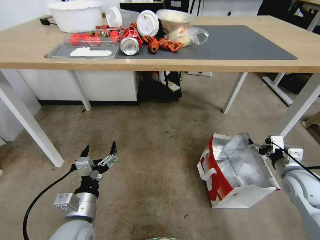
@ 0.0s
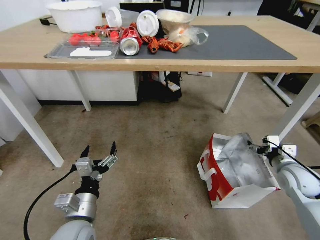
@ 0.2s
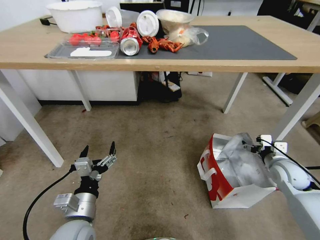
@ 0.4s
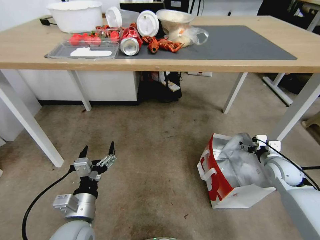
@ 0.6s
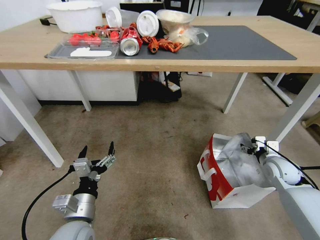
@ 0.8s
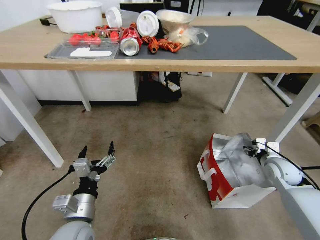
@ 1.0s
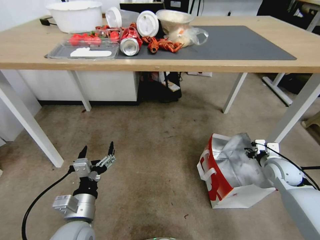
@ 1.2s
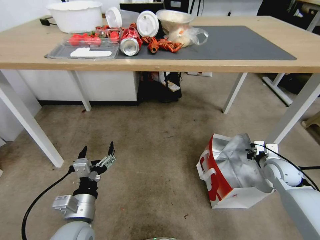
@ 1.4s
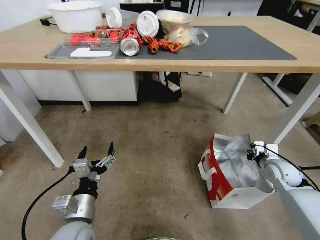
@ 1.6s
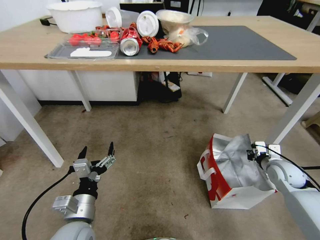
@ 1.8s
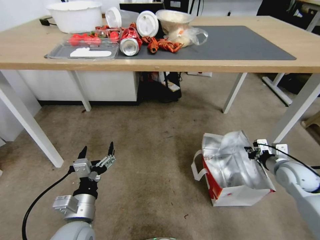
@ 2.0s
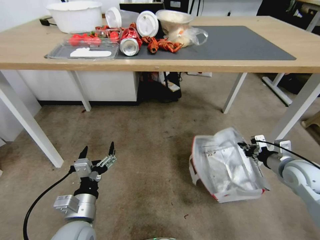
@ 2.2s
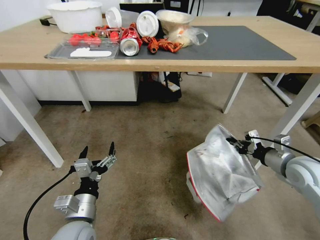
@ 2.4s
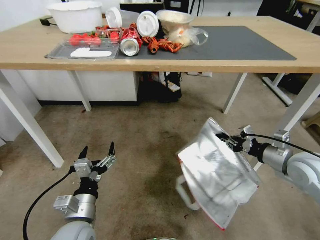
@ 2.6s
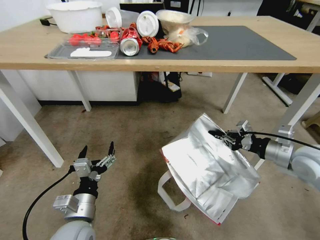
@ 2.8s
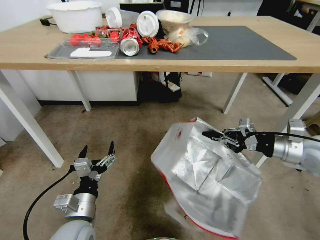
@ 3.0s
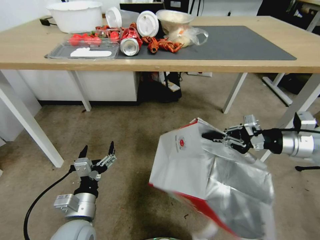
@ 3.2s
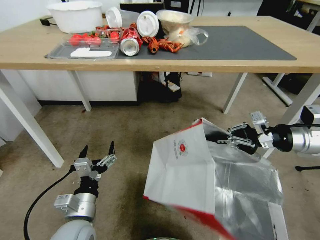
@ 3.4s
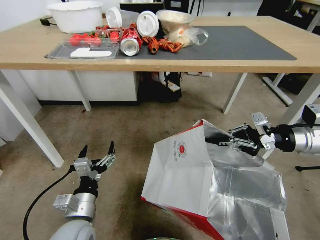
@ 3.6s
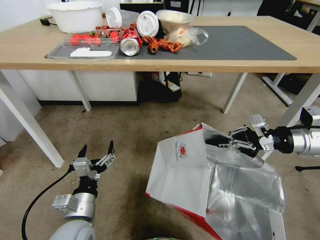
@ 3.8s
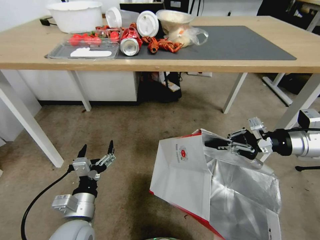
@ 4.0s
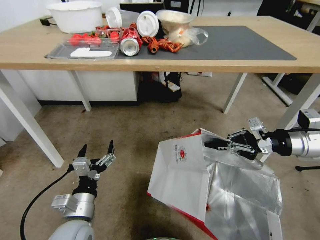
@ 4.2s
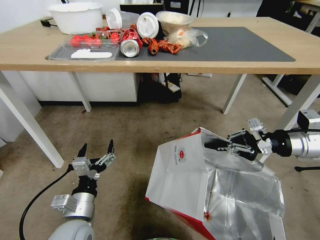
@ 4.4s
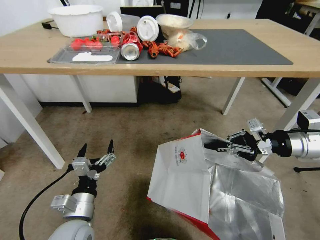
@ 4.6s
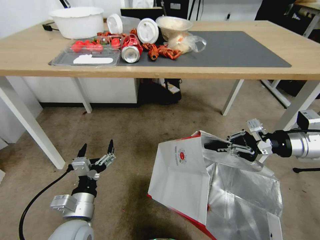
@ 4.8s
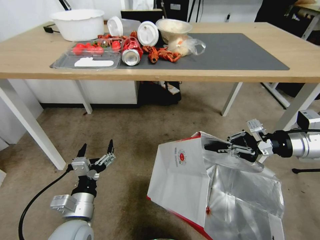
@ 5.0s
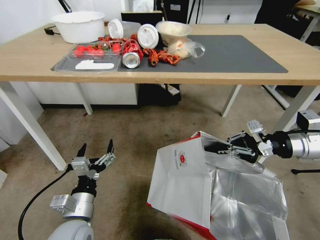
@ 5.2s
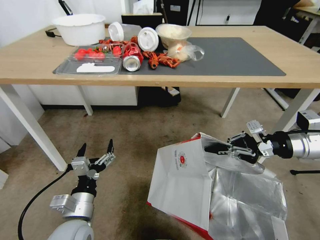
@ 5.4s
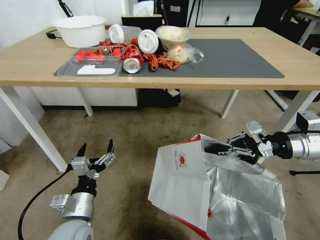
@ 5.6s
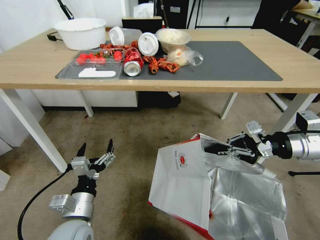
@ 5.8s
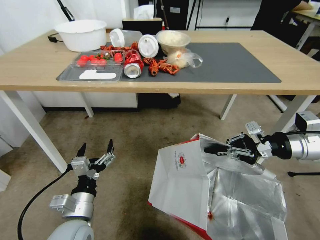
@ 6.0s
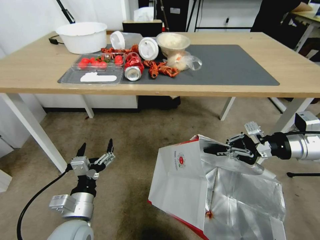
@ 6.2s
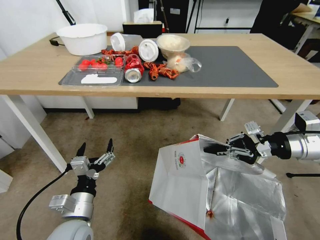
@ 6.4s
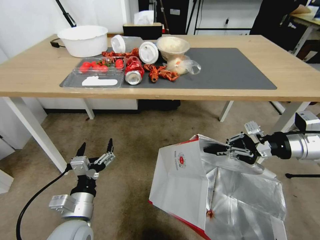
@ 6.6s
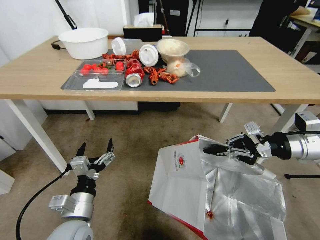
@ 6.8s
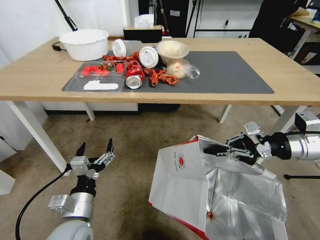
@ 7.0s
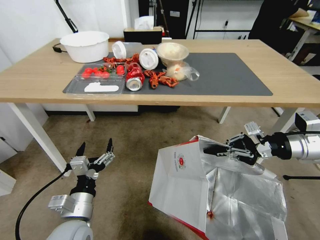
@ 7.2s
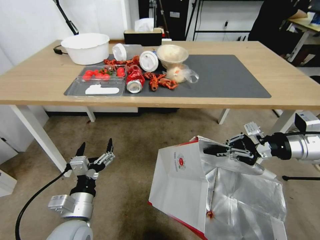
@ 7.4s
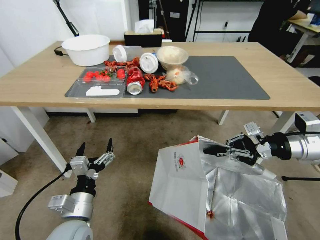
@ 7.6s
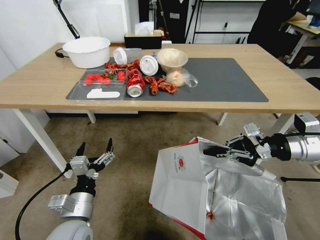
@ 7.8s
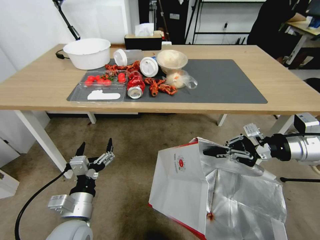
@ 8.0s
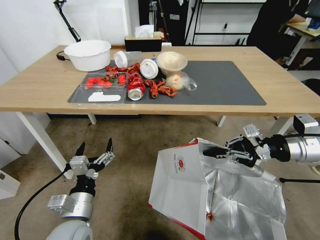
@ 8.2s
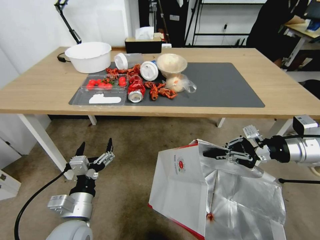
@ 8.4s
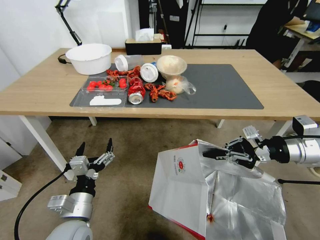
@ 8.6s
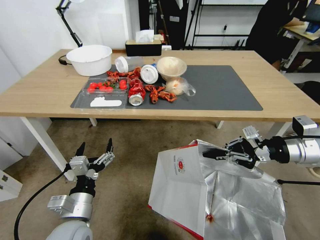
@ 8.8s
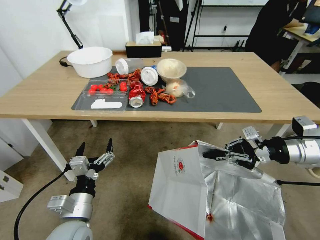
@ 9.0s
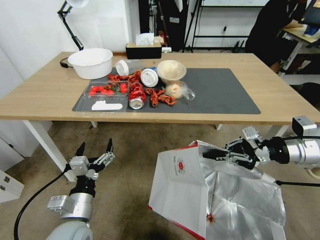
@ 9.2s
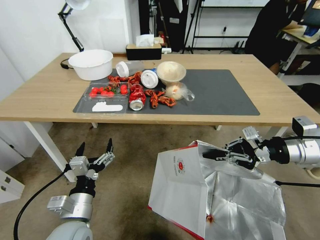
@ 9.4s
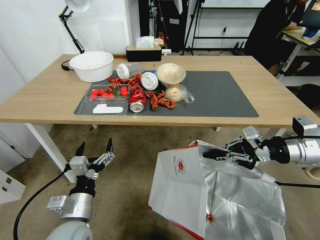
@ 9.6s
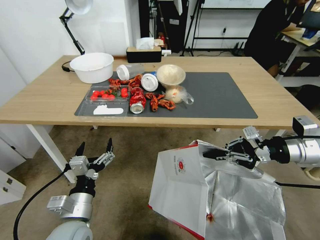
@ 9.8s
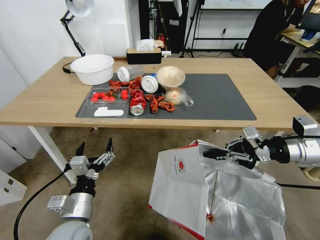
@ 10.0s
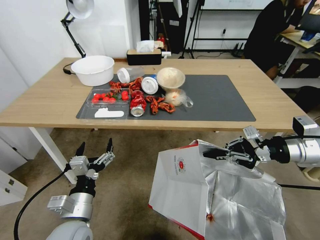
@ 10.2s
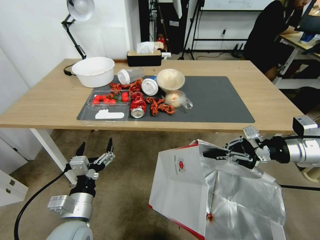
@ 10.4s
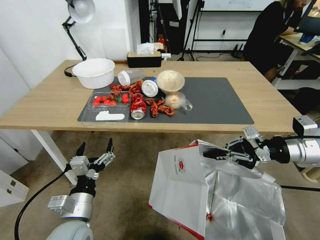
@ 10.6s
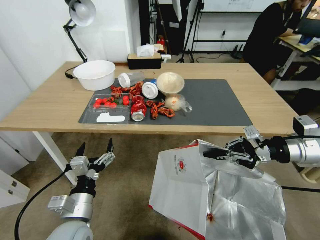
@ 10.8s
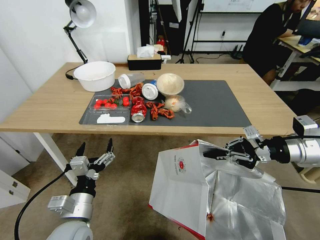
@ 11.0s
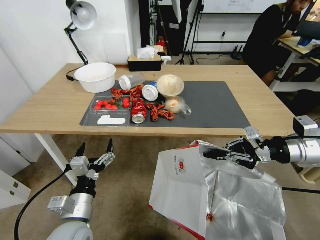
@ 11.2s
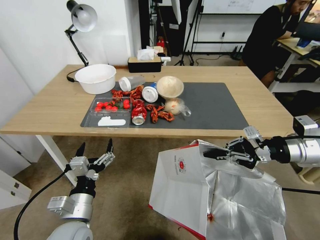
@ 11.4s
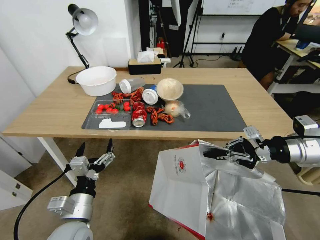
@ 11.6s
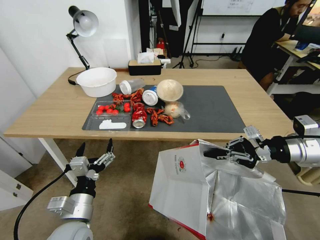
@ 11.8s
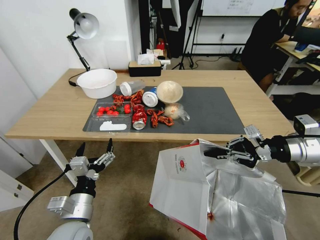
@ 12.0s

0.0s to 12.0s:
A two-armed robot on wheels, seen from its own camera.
Task of the whole recording: Pick up the food delivery bag from the floor and place it on the table.
0.0s to 1.6s: The right gripper heads forward and downward, covering some 10 cm, and closes its fingers.
1.6s to 3.0s: The right gripper shifts roughly 20 cm upward.

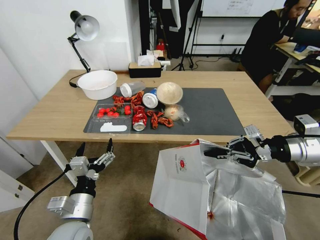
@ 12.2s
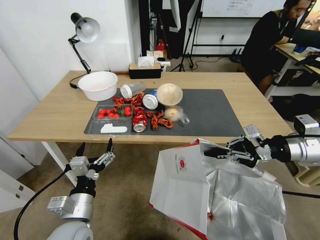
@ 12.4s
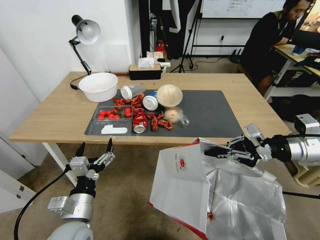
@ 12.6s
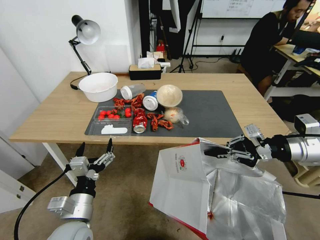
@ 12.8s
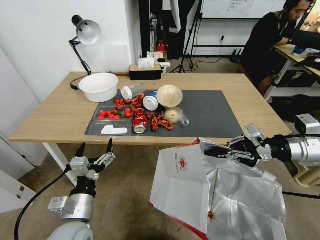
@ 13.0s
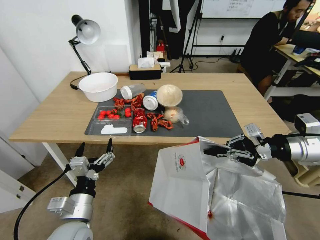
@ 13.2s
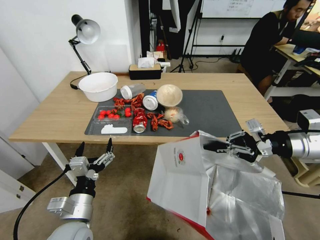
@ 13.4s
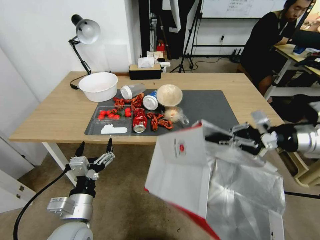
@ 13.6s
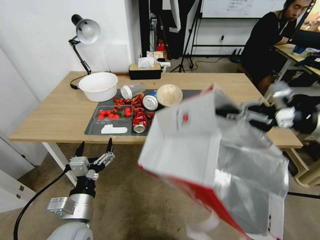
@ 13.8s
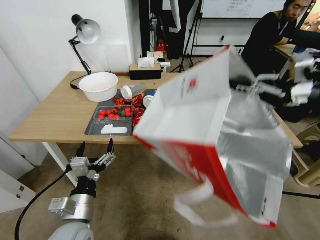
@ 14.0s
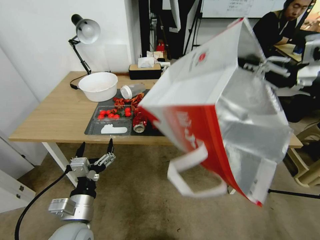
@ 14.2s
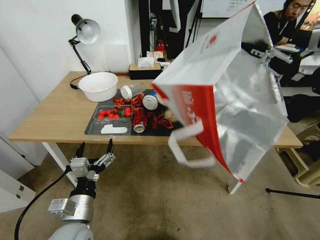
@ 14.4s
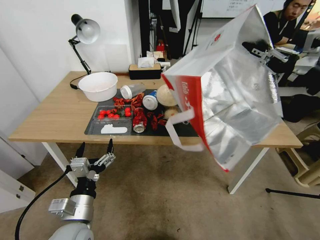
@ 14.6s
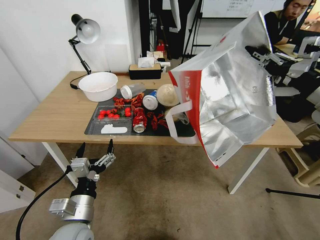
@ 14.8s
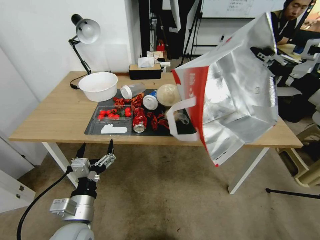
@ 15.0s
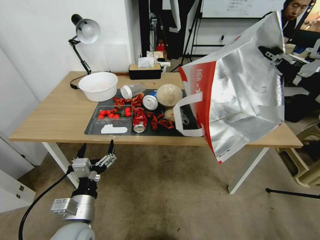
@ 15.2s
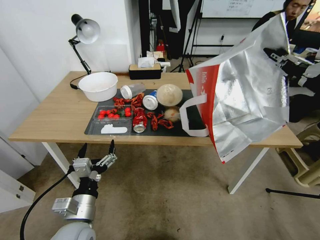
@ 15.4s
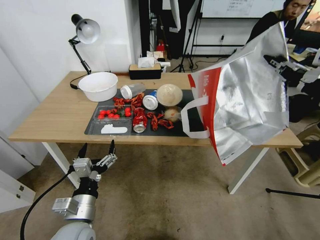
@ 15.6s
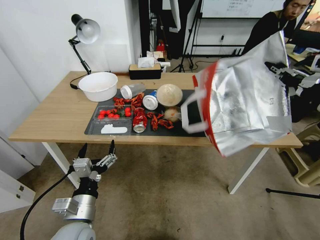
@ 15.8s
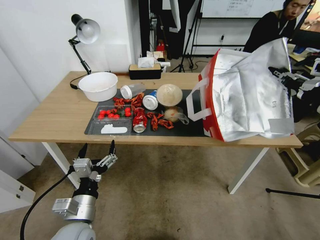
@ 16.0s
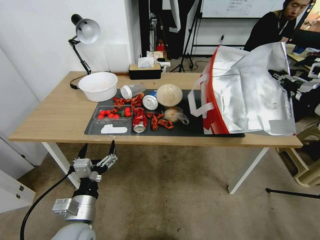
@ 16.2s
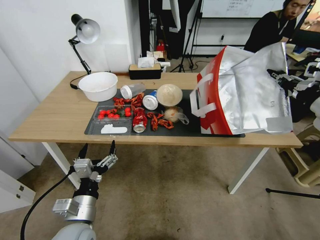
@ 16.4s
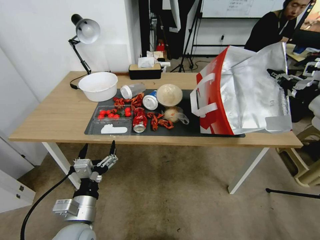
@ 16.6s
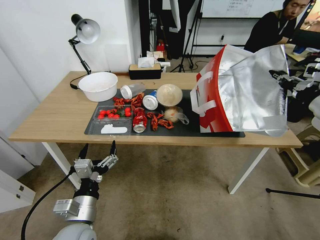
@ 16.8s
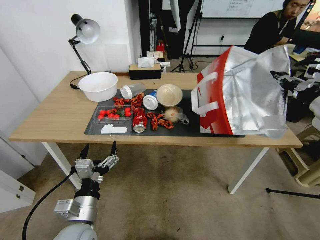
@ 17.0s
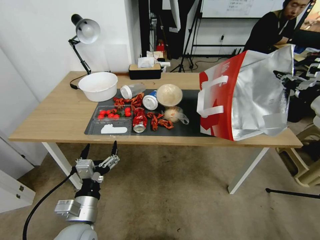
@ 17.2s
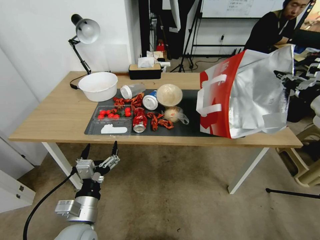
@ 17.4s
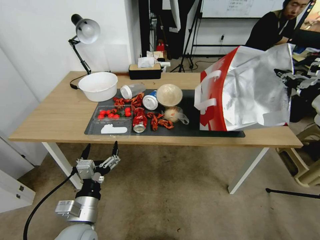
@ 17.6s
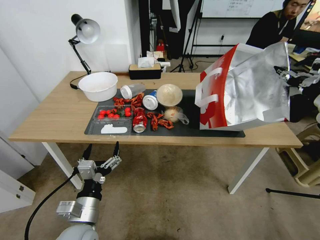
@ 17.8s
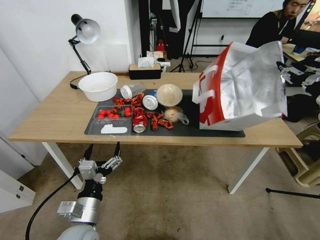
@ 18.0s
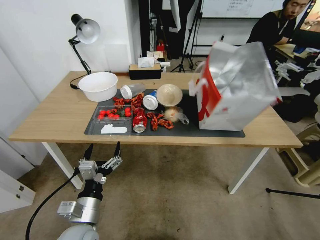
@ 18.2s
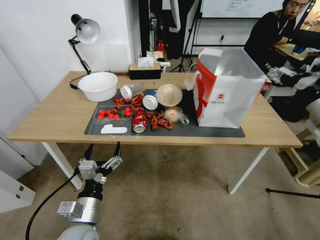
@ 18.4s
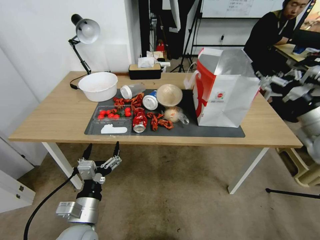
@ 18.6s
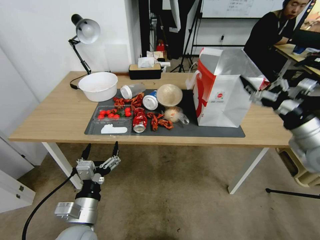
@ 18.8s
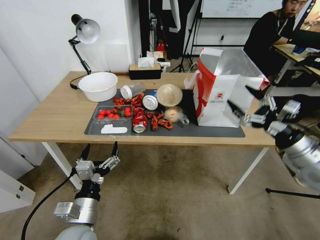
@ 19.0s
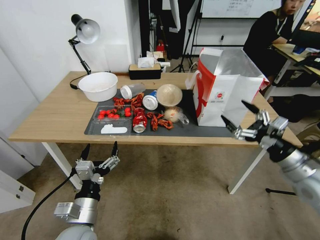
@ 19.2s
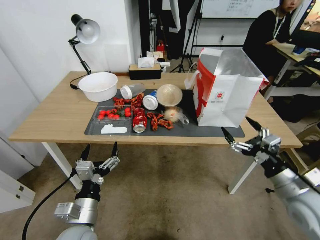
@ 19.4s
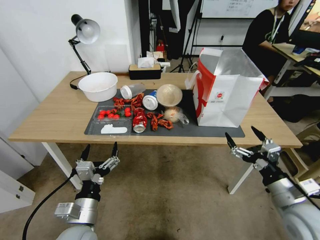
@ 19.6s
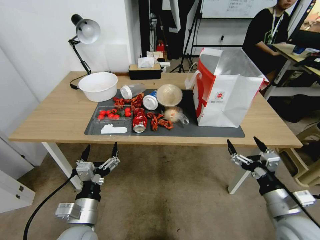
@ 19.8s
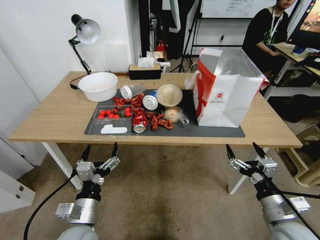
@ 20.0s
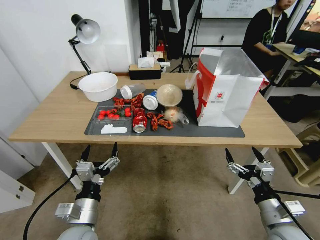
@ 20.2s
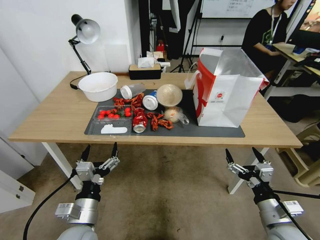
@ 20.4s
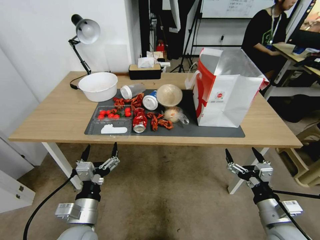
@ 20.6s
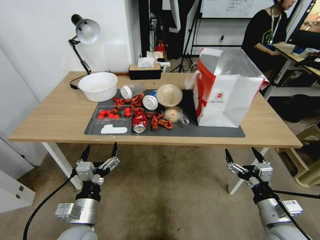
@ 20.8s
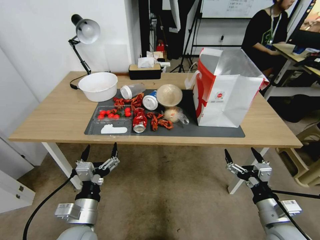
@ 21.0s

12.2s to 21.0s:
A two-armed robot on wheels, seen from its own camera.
Task of the whole recording: Pick up the food delivery bag from the floor and place it on the table.
13.6s to 15.2s: The right gripper travels upward by approximately 5 cm.
15.2s to 16.6s: The right gripper heads downward, covering some 5 cm.
16.6s to 18.0s: The right gripper opens.
18.0s to 19.6s: The right gripper travels downward, backward and to the left by roughly 25 cm, and opens its fingers.
19.6s to 21.0s: The right gripper goes some 5 cm downward.
